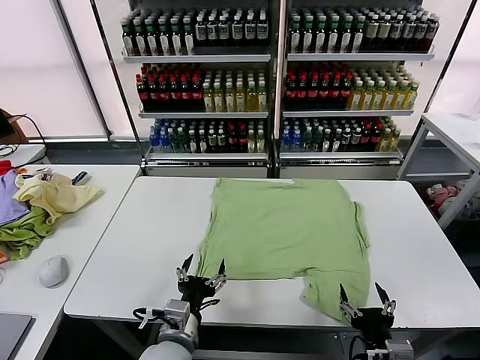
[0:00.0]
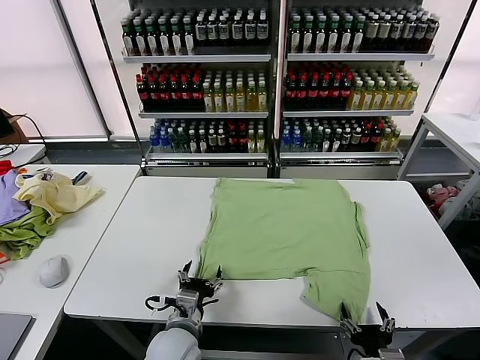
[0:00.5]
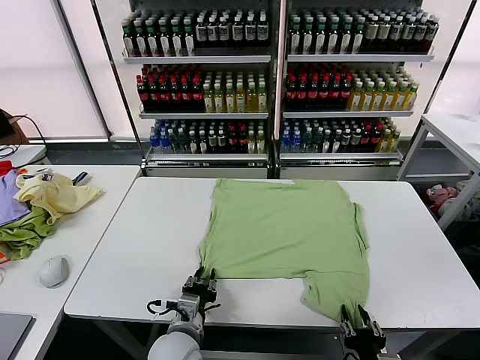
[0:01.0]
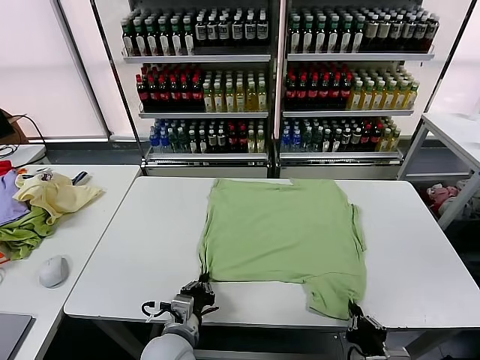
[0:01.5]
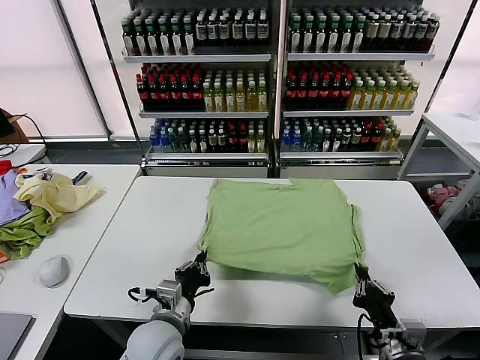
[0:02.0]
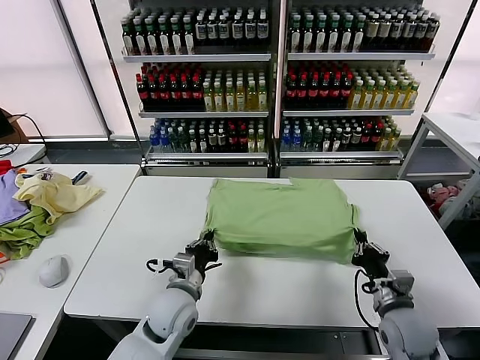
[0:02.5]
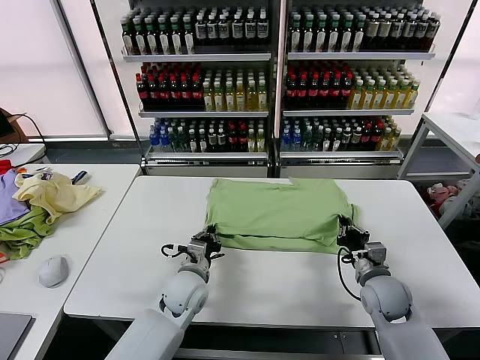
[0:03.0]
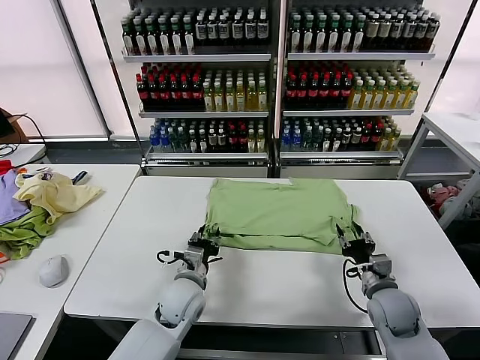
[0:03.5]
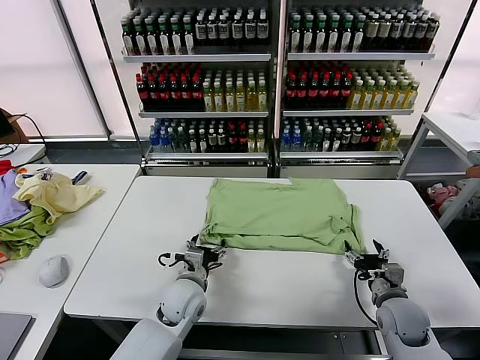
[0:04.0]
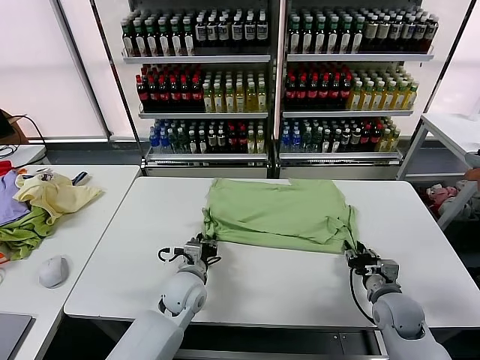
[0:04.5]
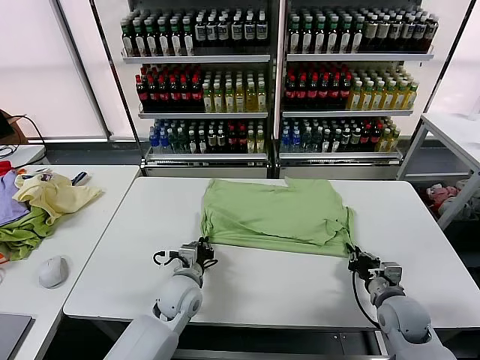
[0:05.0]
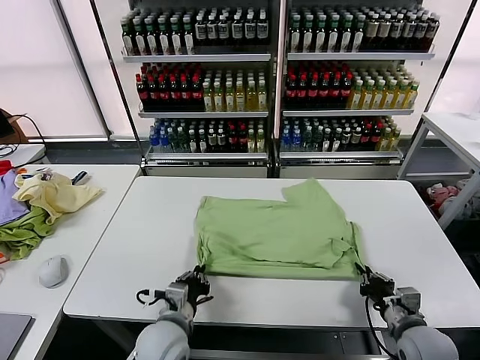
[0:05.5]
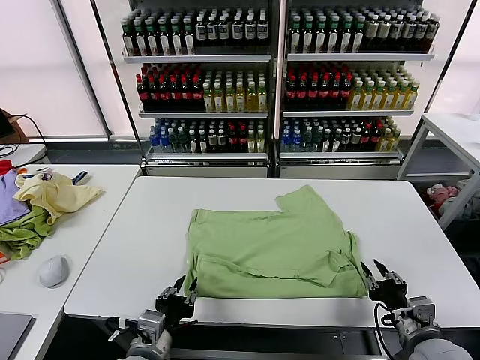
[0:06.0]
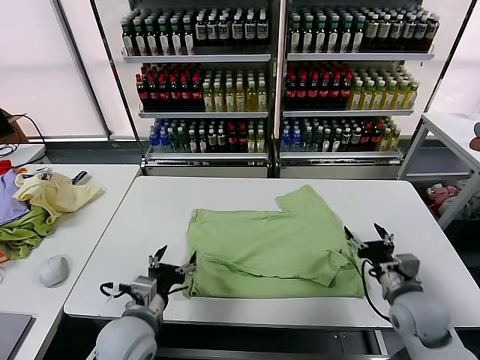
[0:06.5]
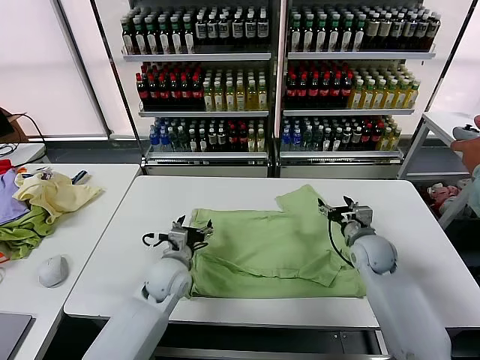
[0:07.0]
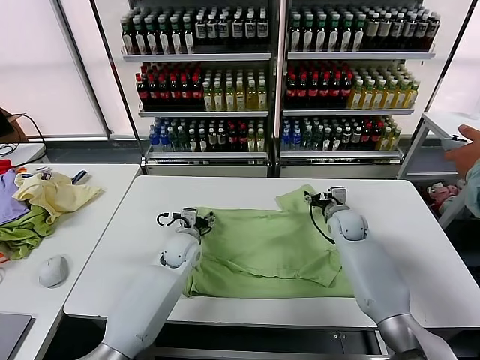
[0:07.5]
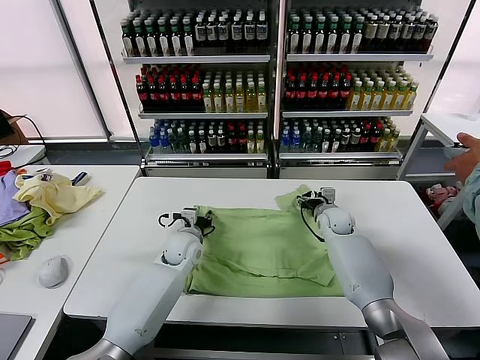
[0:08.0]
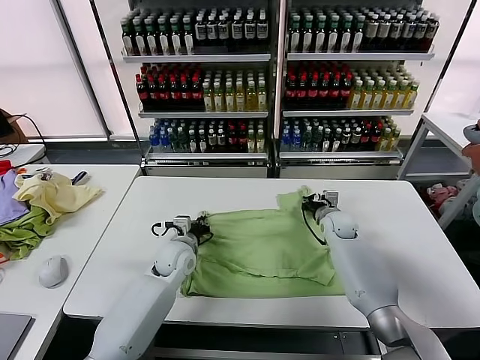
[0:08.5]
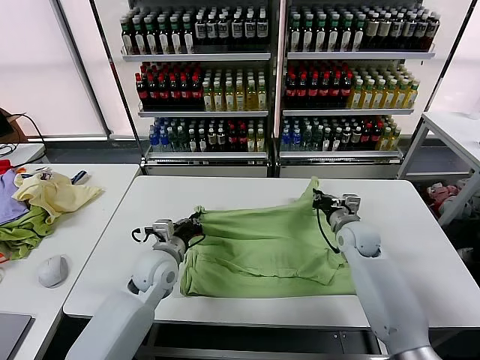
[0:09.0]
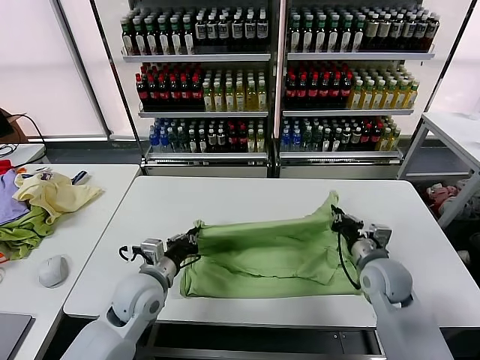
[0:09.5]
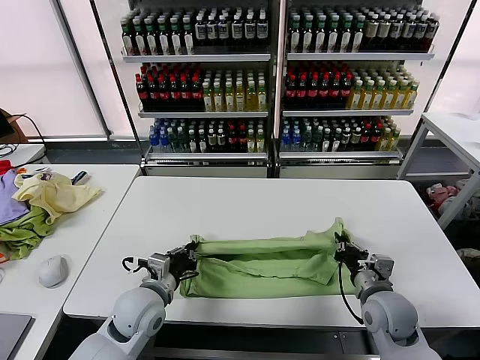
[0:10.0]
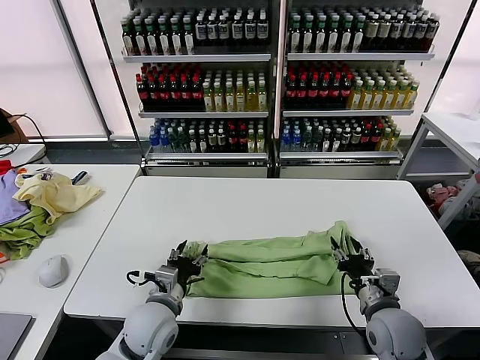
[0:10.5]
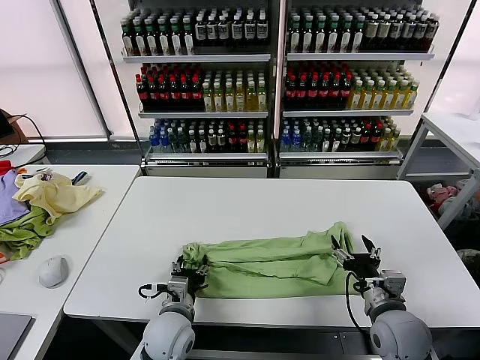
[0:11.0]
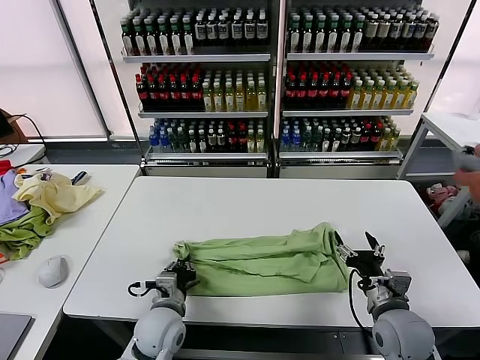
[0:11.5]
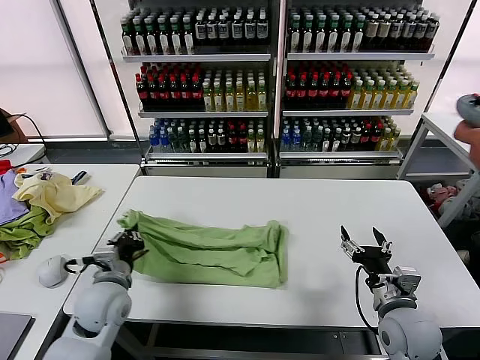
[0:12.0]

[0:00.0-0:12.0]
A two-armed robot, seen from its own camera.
Task of the whole recording: fold and organize the clothes.
Step, 0:00.0 to 0:01.0: use both grippers simultaneously to clamp the lower edge of the clothing fabric.
Step, 0:01.5 to 0:03.0: use both grippers to drag the lower edge of the fabric forward and fold it over the upper edge.
Step, 0:03.5 to 0:06.0: Drag the clothes downward with both gripper.
Step, 0:06.5 to 0:08.5: use both grippers simultaneously to clamp the upper edge of the clothing fabric.
Step, 0:09.0 to 0:10.0: use both grippers to drag the upper edge of the fabric backward and fold it over the lower edge.
Step, 0:10.5 to 0:11.5: use the left gripper to clamp the left edge of the fabric.
0:02.0 to 0:04.0: The two grippers go some 15 cm forward and downward. The right gripper opens its fingers. Meanwhile the left gripper opens.
0:04.0 to 0:06.0: The left gripper shifts about 15 cm backward, and closes its fingers, while the right gripper goes approximately 10 cm backward and upward, and closes and opens again.
0:06.0 to 0:08.0: The grippers both shift forward by about 35 cm. The left gripper opens, then closes once more. Meanwhile the right gripper opens and closes again.
0:08.0 to 0:10.0: The left gripper moves backward, about 15 cm, and closes. The right gripper is displaced backward by approximately 25 cm, and closes up.
0:10.0 to 0:12.0: The right gripper shifts by about 5 cm, and opens its fingers, while the left gripper heads to the left, covering some 5 cm, and opens and closes again.

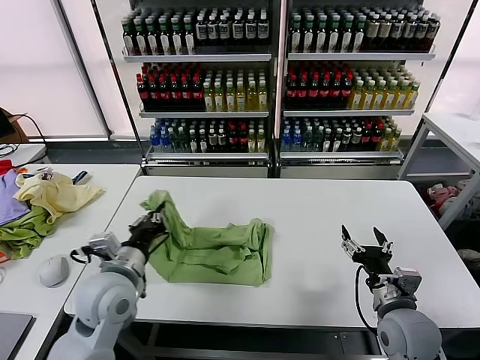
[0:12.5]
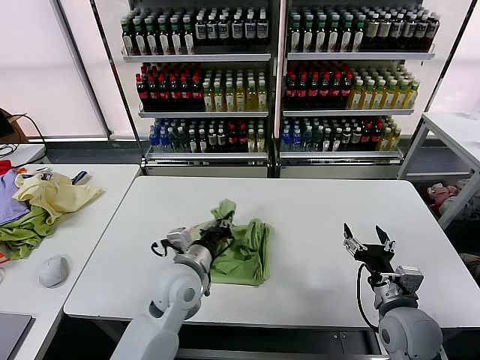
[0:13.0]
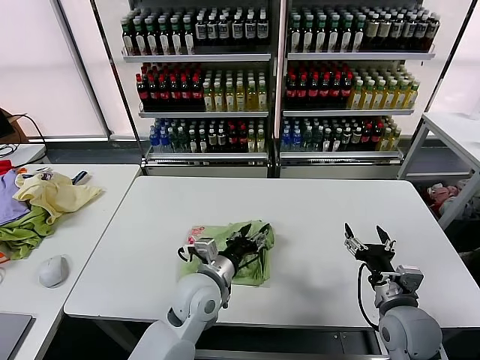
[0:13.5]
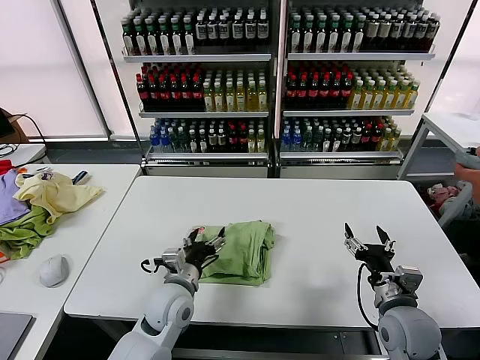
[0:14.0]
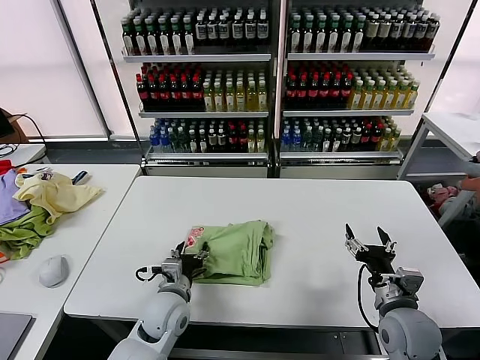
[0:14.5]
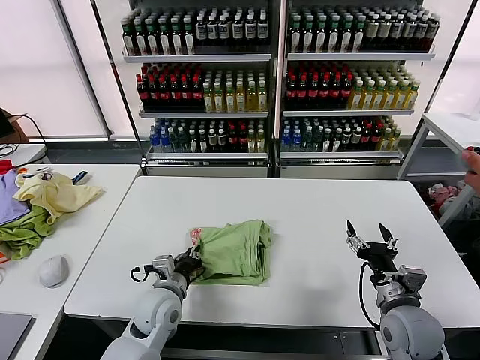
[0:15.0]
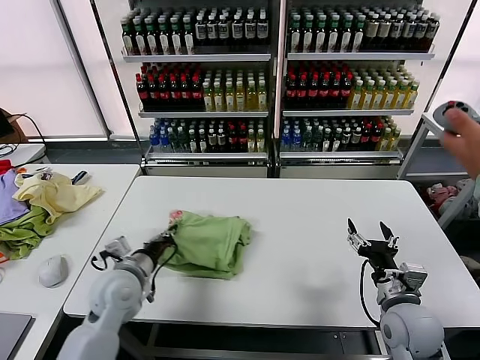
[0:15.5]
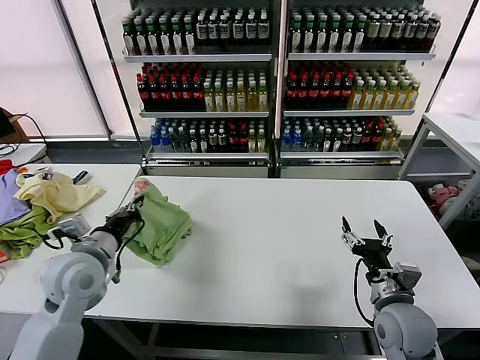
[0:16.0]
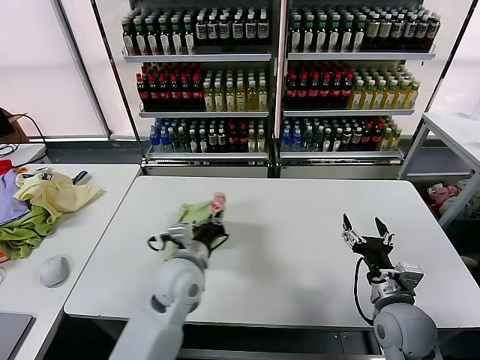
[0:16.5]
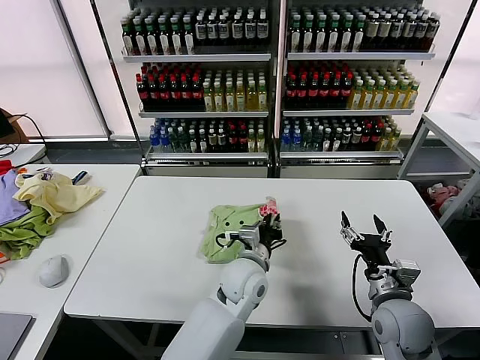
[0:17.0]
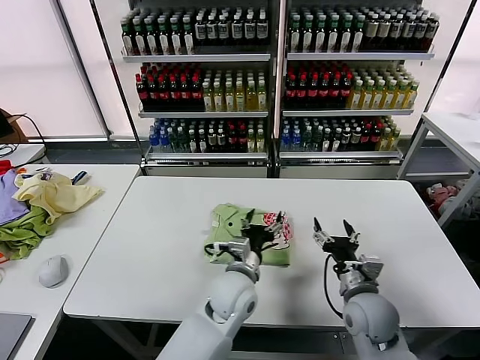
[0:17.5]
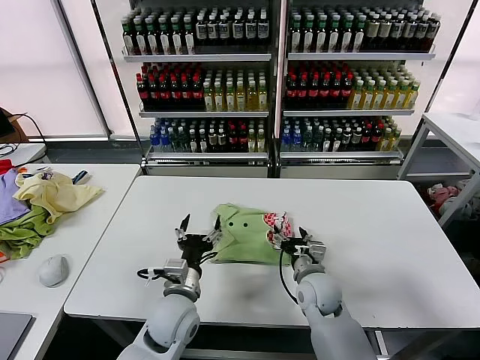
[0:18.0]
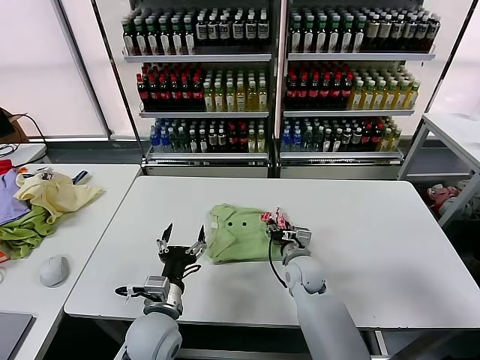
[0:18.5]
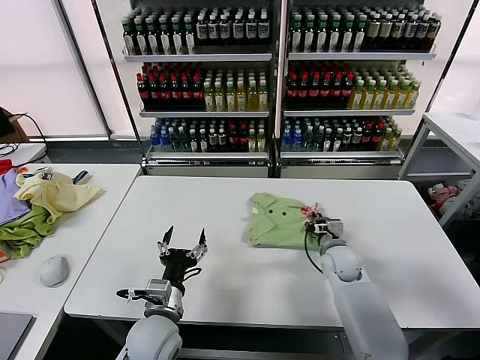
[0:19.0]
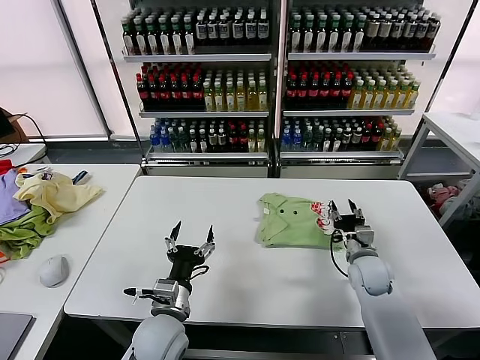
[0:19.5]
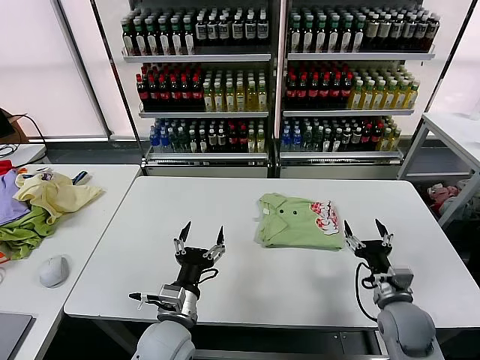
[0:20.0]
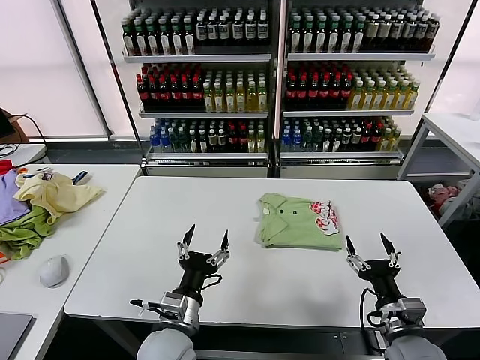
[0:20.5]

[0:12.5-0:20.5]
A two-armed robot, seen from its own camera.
Task of the whole recording: fold and organize the clothes.
Step, 0:14.0 to 0:17.0: Flip the folded clothes over with left gripper.
Step, 0:17.5 to 0:19.0: Drag the clothes to the center of the table.
0:12.5 to 0:14.5: The left gripper travels downward and to the right by some 15 cm, and opens up.
0:14.5 to 0:16.5: The left gripper moves upward, approximately 10 cm, reaches roughly 15 cm to the left, then returns, and closes its fingers.
0:16.5 to 0:18.5: The left gripper goes some 10 cm backward and downward, moves approximately 15 cm to the right and comes back, and opens. Meanwhile the right gripper moves forward, to the left and downward, approximately 25 cm, and closes its fingers.
0:18.5 to 0:20.5: The right gripper heads backward and to the right, covering approximately 25 cm, and opens up.
